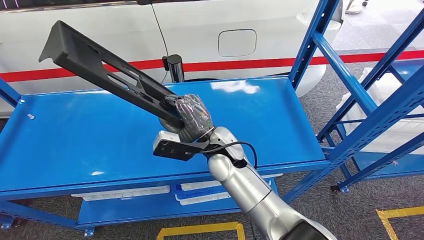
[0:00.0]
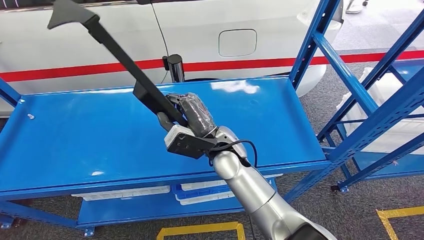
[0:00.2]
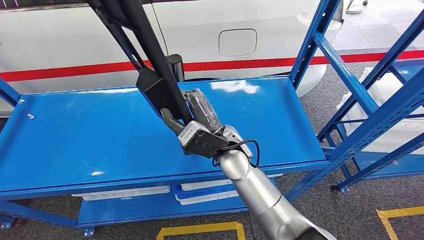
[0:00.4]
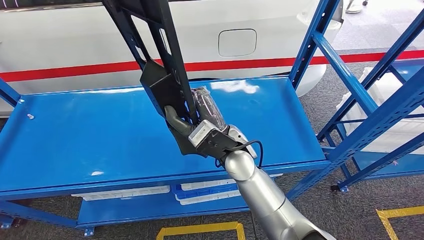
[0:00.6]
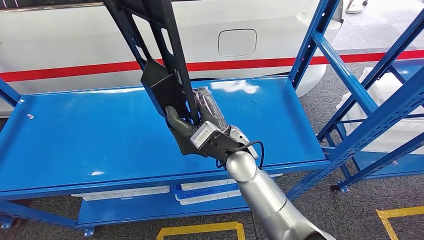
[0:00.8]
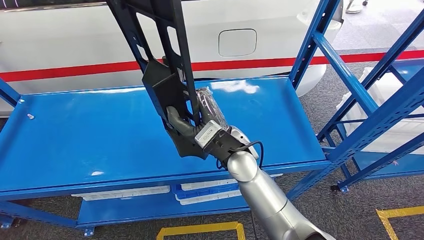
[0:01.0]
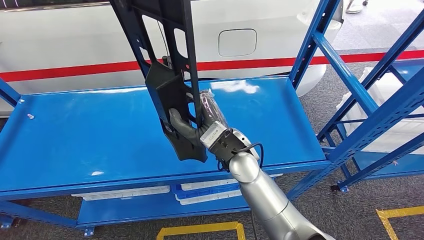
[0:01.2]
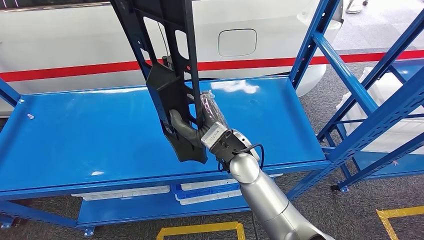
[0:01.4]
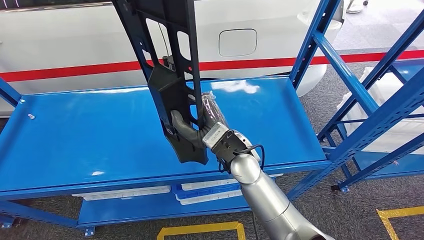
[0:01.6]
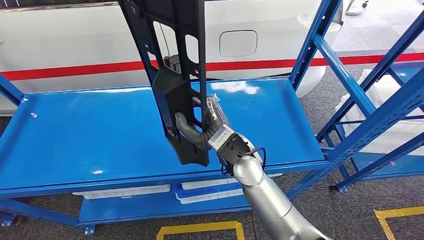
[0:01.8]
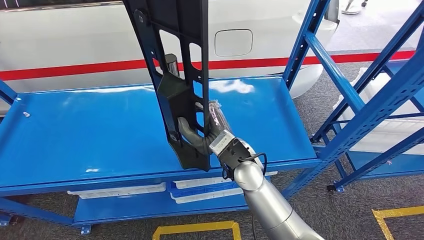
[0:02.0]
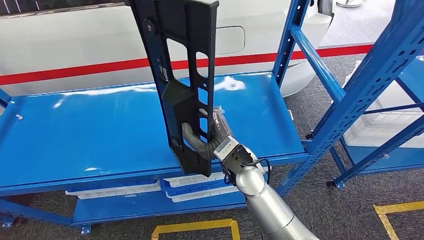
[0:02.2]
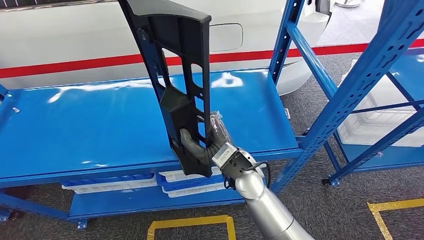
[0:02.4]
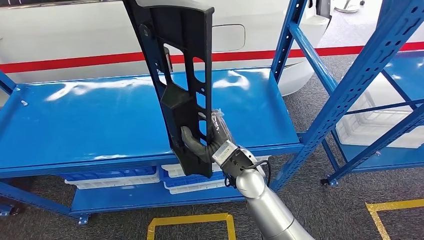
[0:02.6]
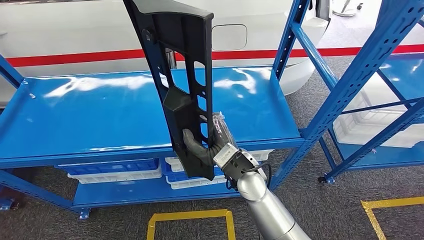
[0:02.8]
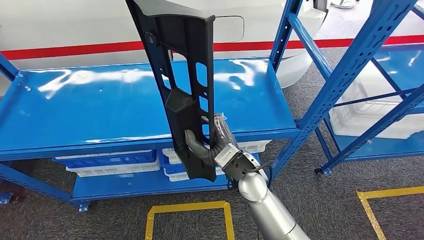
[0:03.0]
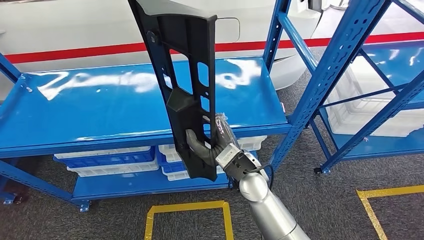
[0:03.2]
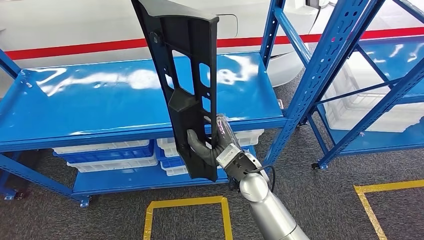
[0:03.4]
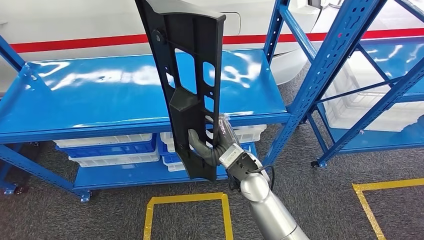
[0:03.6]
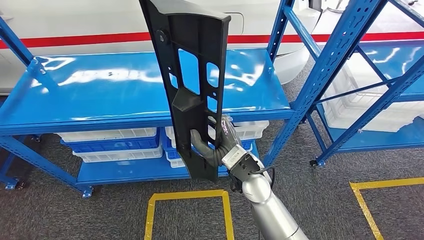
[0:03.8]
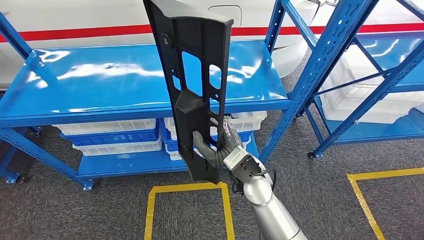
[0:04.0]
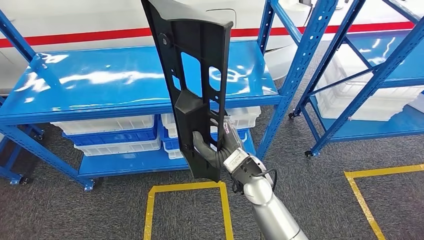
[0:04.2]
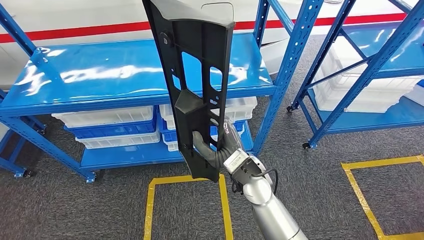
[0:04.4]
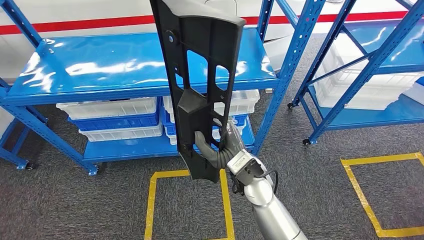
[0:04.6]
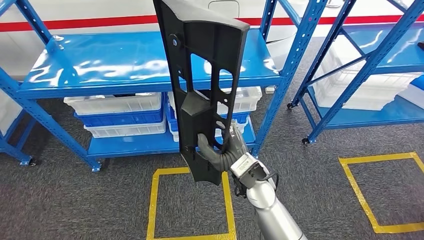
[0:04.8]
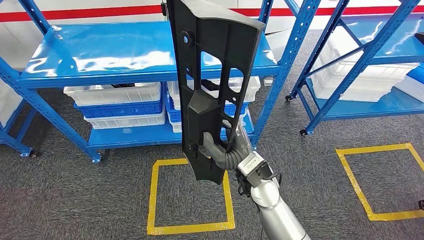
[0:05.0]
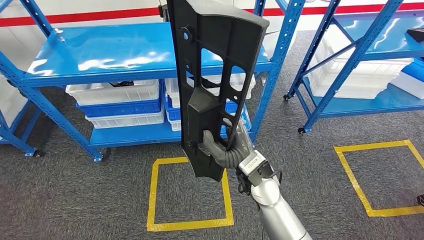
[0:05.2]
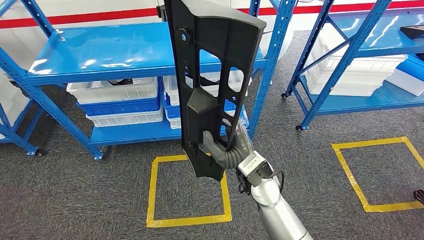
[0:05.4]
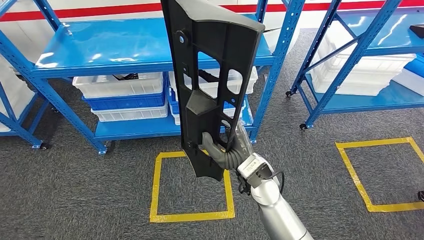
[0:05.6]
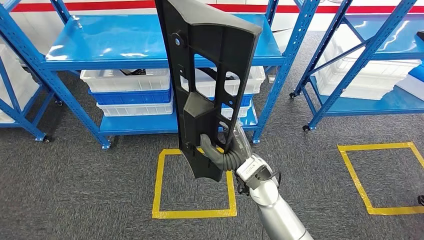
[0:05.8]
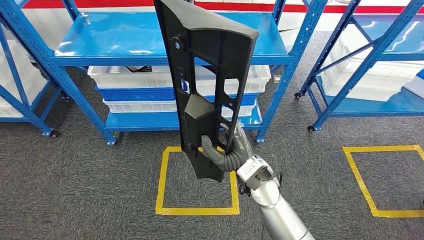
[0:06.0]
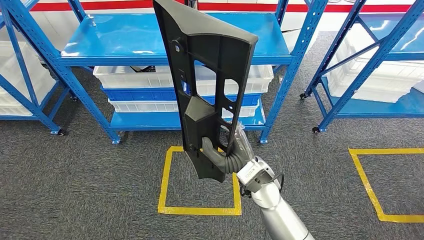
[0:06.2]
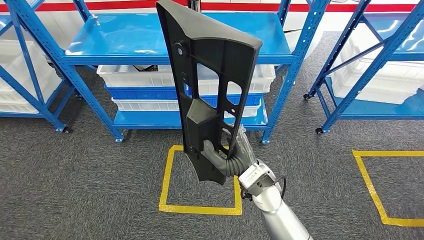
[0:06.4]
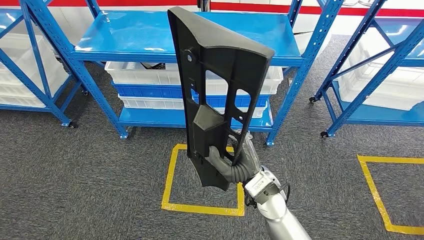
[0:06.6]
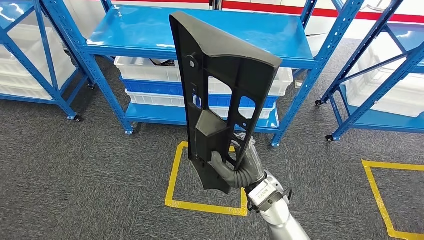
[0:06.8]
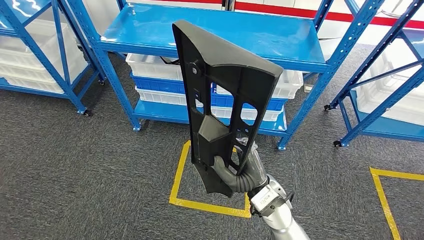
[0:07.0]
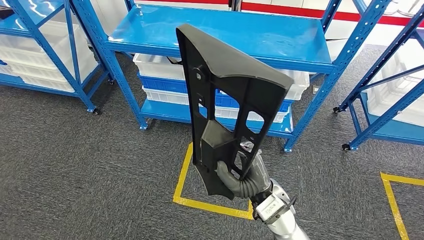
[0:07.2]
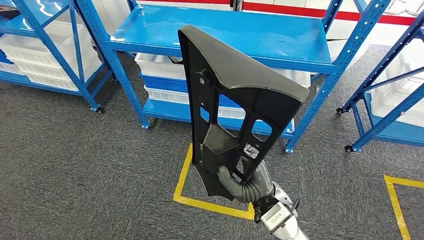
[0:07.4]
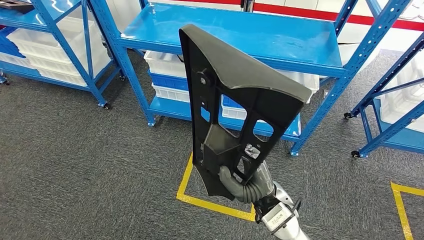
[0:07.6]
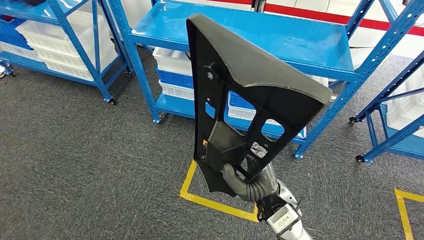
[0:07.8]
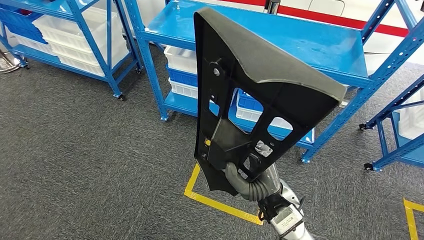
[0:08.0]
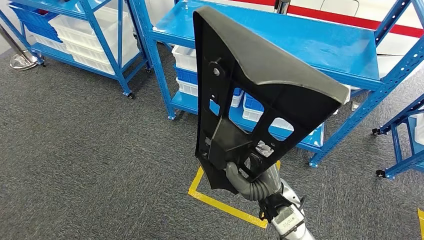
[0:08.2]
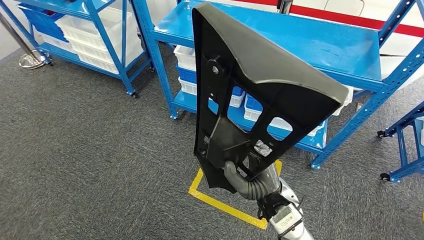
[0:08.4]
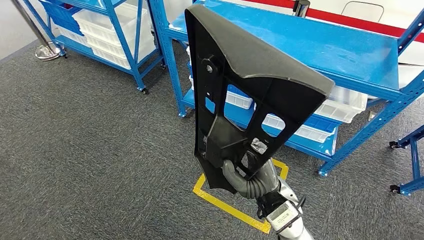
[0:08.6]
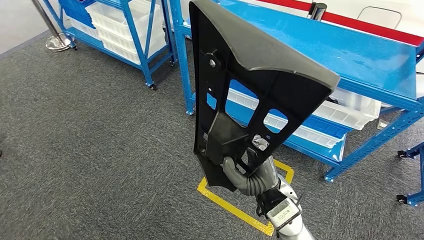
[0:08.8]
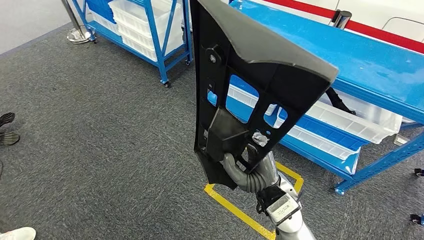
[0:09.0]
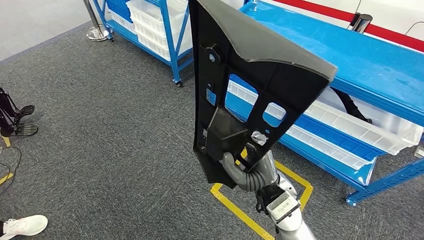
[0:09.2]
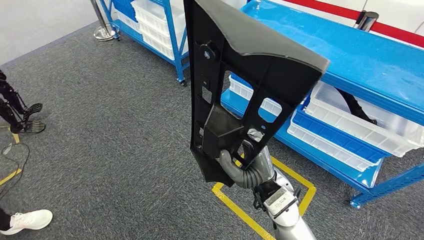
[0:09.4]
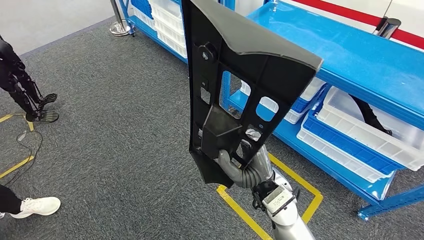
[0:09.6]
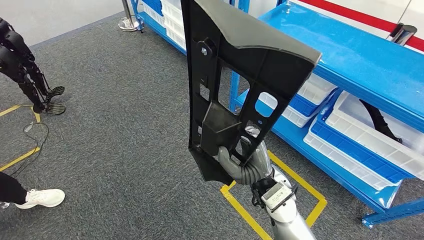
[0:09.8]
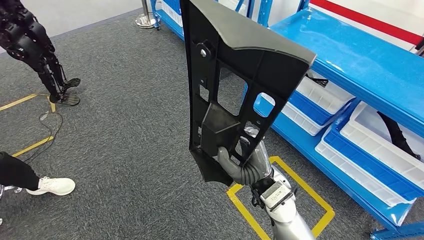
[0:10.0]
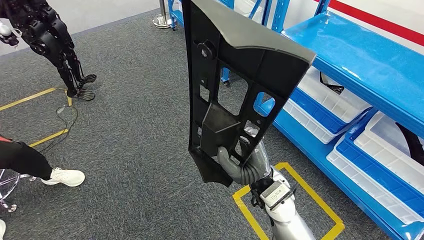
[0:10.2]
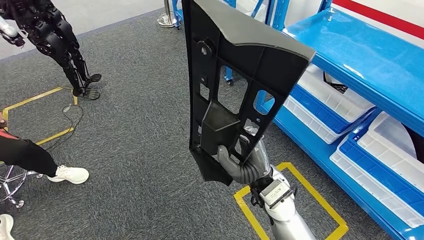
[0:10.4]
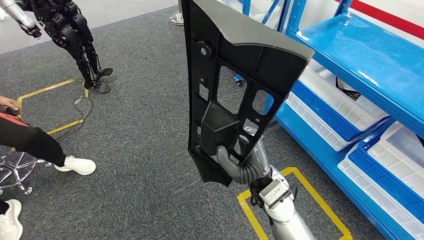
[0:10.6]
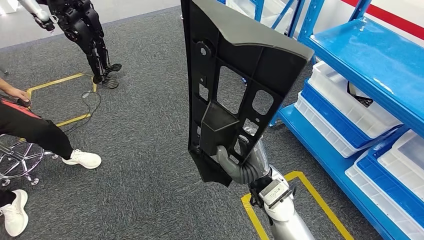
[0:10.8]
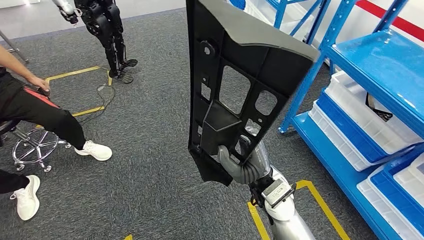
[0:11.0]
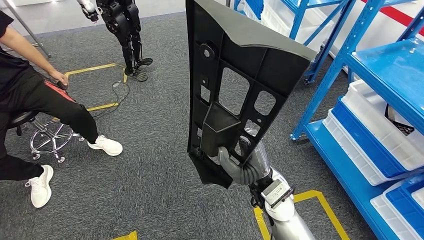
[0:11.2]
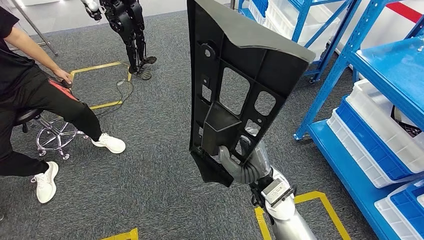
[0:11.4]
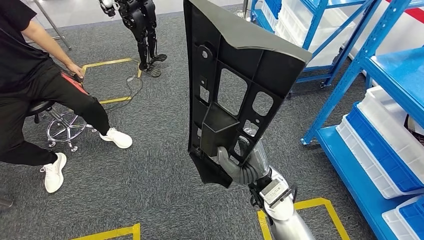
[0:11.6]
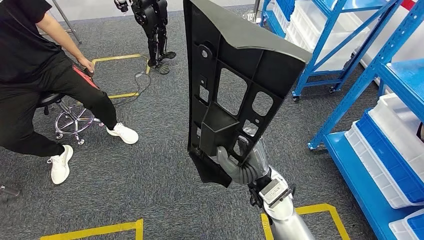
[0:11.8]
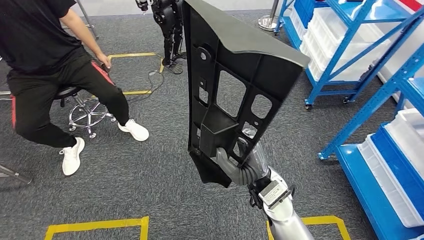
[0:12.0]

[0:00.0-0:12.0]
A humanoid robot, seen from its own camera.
Step, 0:00.0 to 0:02.8: Pick up the large material from the shelf.

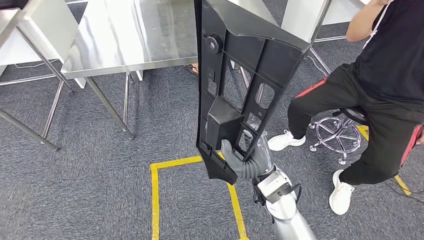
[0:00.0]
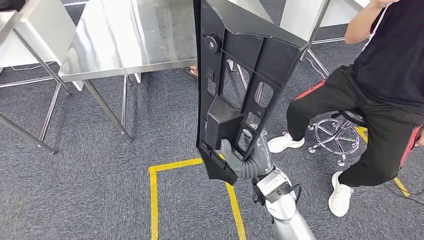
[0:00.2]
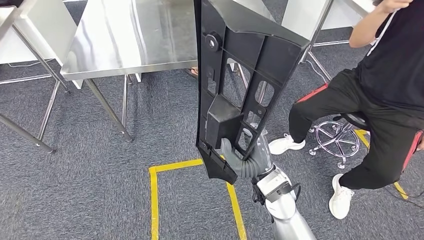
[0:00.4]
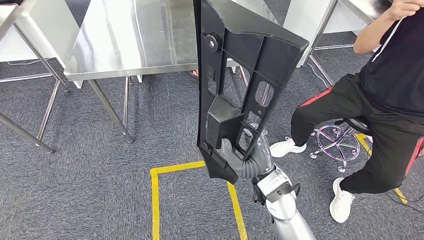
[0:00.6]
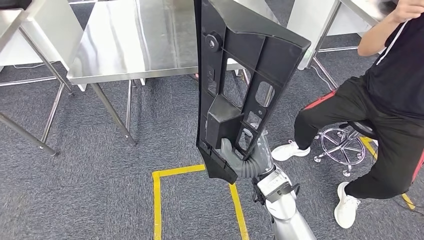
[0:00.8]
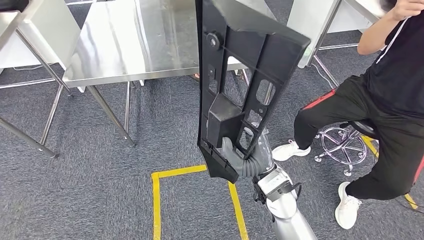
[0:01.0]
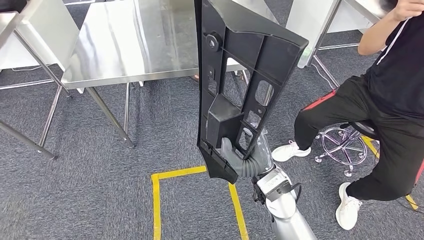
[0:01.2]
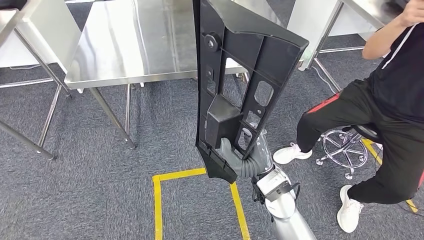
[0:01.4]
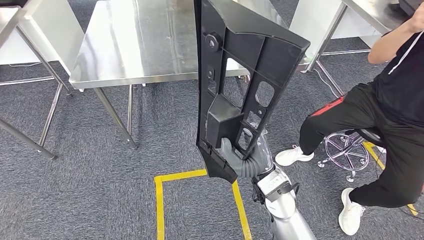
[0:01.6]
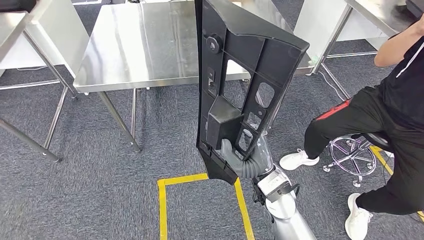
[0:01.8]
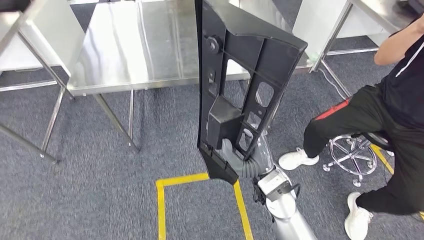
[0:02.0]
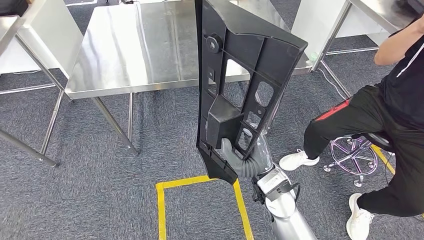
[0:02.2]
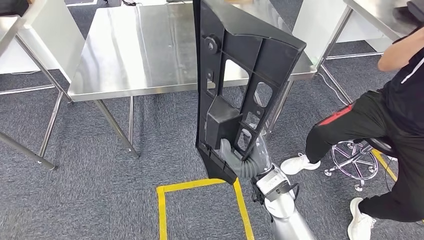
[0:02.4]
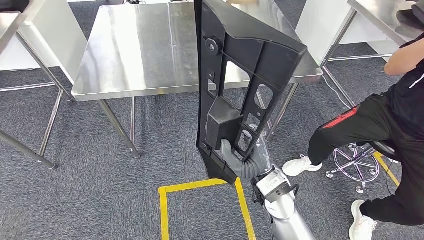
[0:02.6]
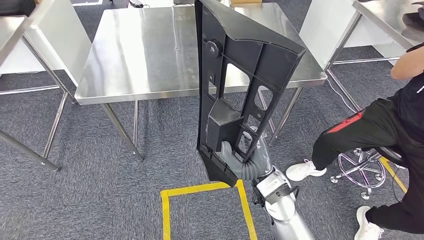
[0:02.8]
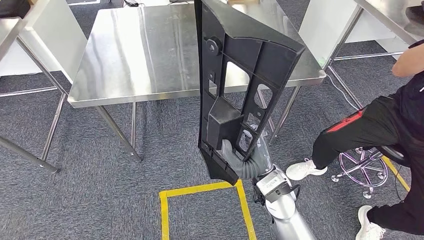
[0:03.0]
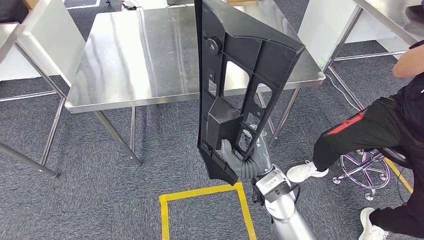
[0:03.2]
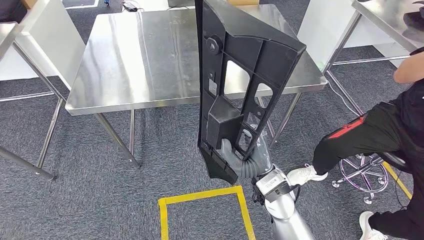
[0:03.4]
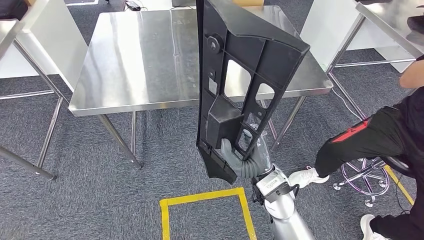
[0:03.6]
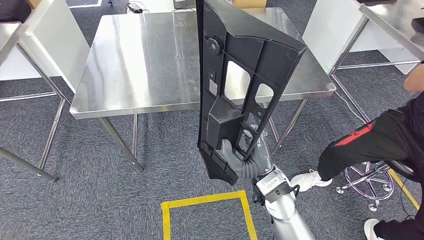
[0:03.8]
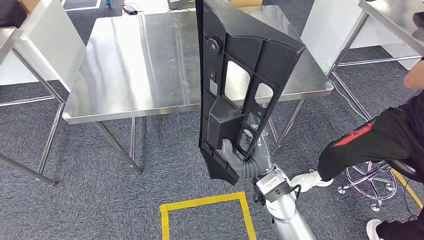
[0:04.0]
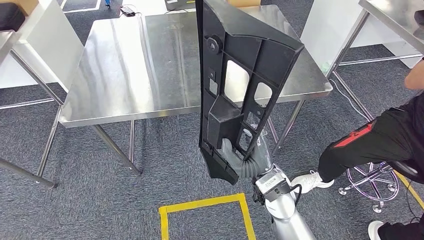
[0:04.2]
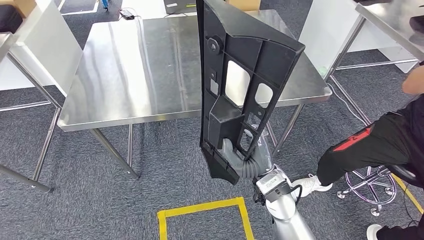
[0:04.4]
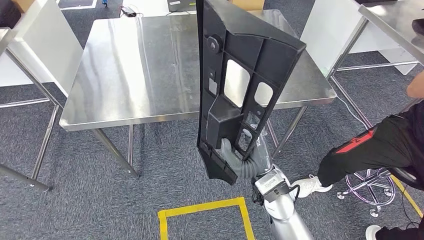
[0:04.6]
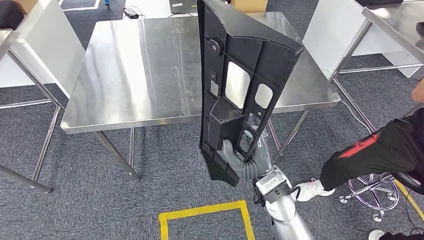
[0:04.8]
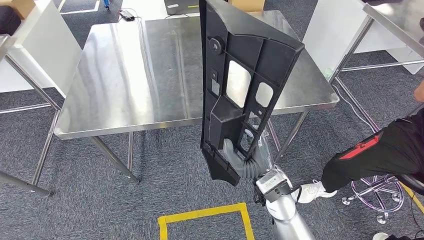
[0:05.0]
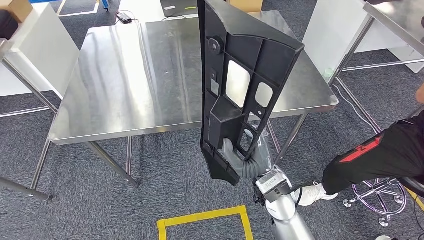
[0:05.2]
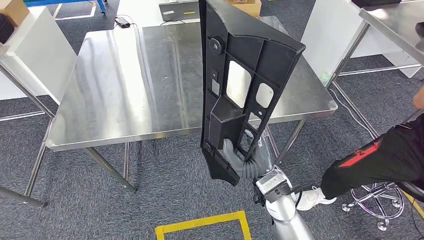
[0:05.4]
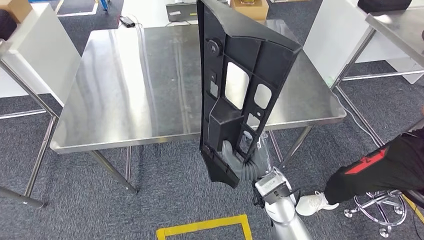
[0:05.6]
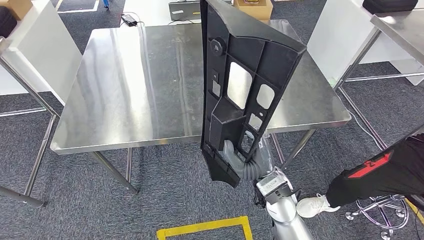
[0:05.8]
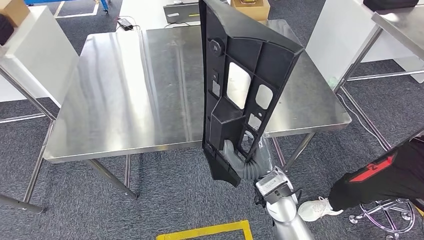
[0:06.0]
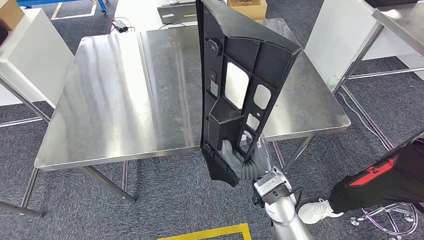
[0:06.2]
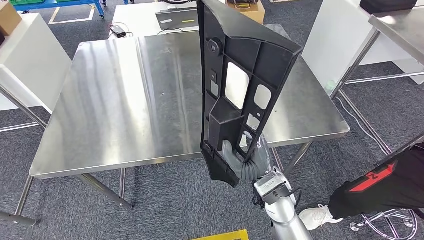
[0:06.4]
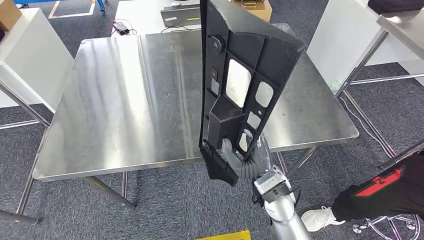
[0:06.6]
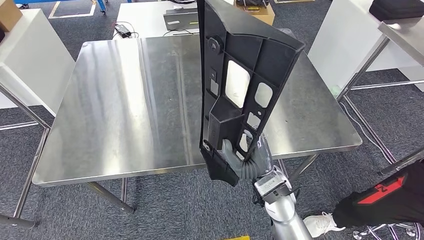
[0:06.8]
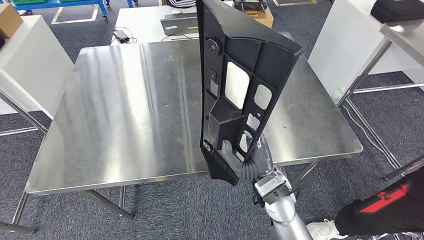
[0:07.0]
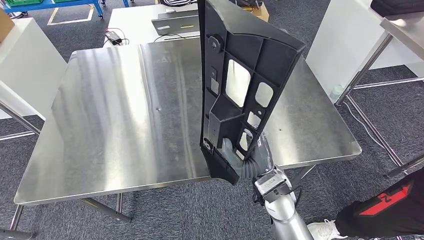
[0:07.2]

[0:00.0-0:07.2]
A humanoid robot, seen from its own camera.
Step, 0:00.0 to 0:04.4: Move the large material to the front of the workbench.
